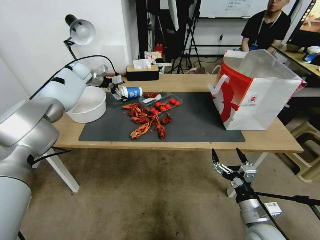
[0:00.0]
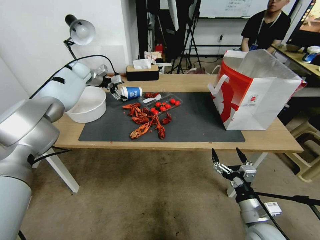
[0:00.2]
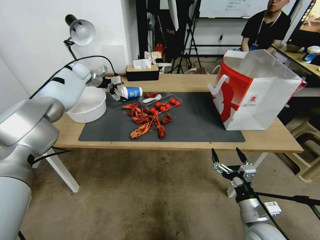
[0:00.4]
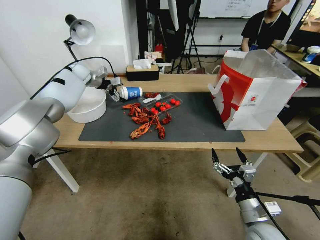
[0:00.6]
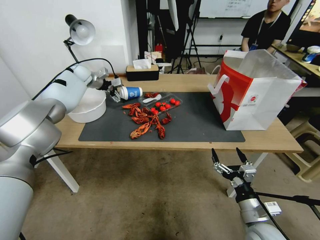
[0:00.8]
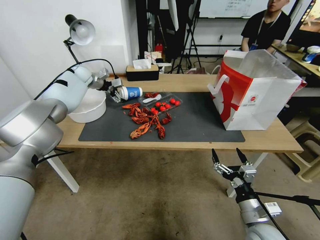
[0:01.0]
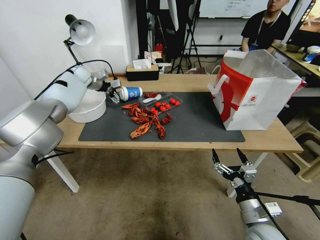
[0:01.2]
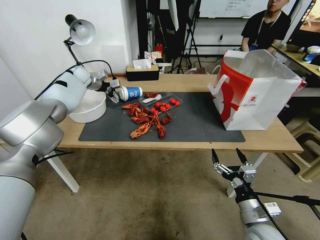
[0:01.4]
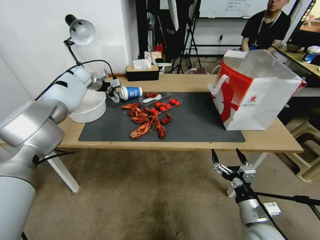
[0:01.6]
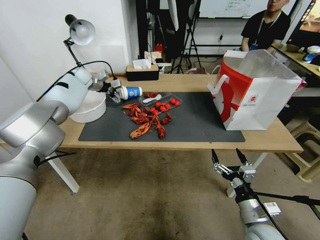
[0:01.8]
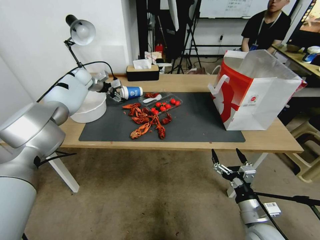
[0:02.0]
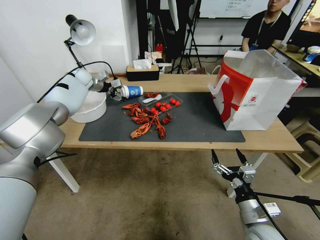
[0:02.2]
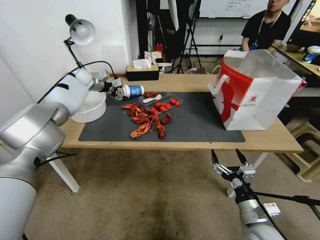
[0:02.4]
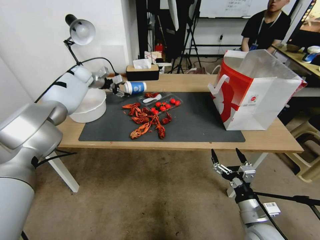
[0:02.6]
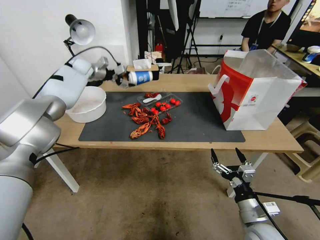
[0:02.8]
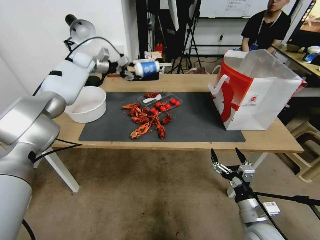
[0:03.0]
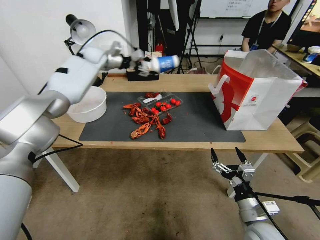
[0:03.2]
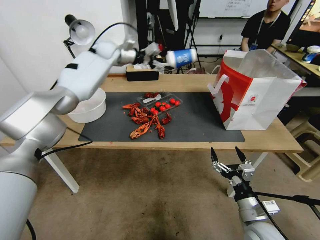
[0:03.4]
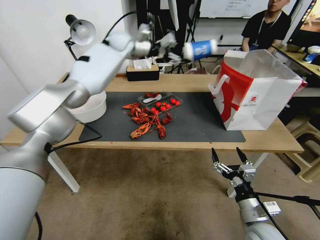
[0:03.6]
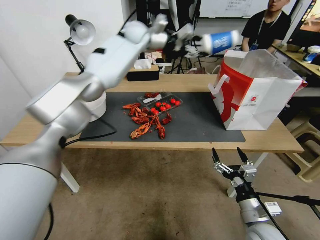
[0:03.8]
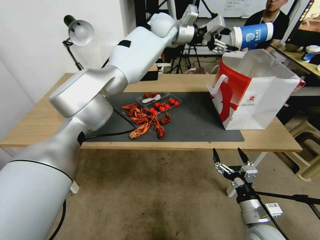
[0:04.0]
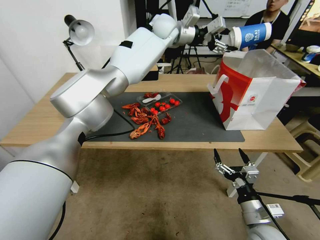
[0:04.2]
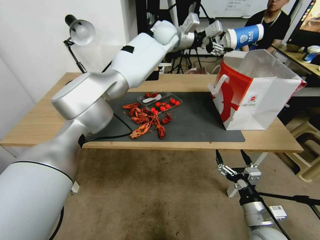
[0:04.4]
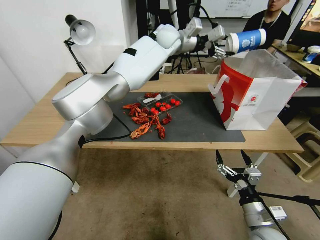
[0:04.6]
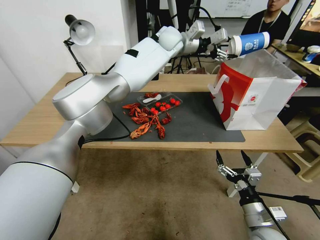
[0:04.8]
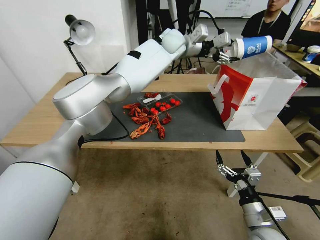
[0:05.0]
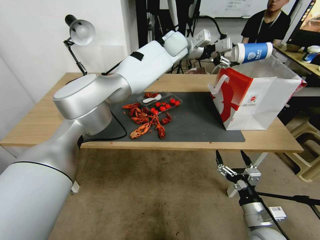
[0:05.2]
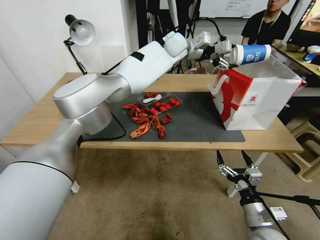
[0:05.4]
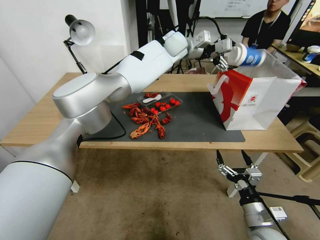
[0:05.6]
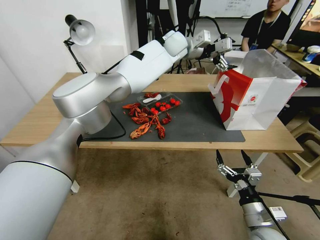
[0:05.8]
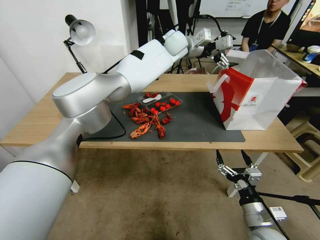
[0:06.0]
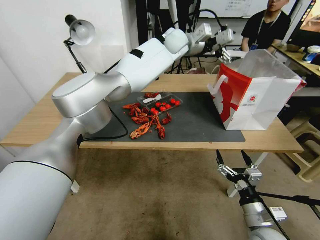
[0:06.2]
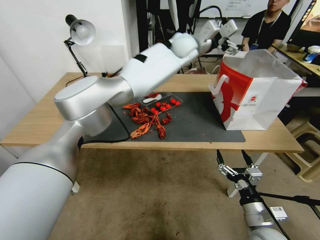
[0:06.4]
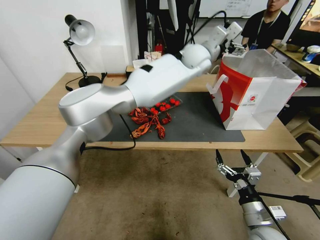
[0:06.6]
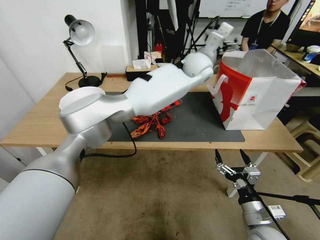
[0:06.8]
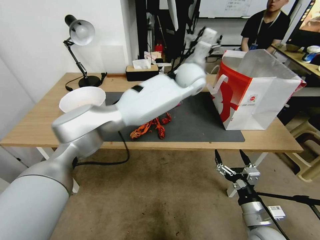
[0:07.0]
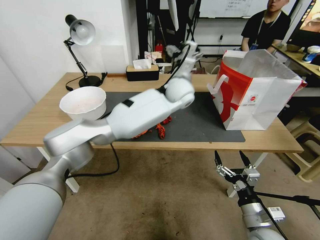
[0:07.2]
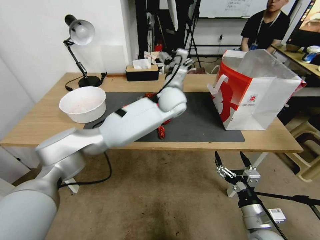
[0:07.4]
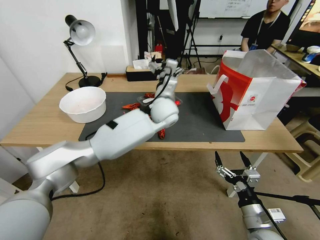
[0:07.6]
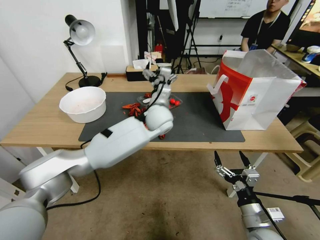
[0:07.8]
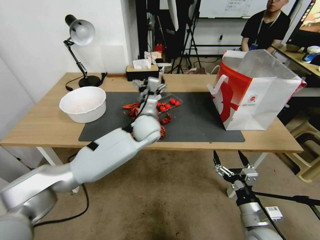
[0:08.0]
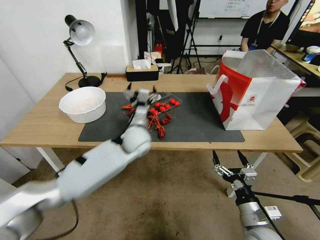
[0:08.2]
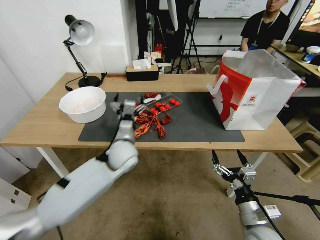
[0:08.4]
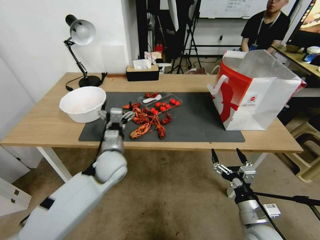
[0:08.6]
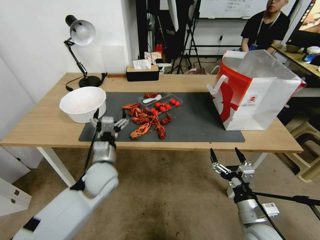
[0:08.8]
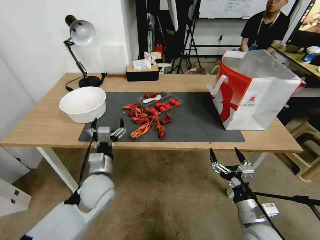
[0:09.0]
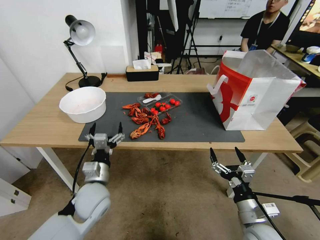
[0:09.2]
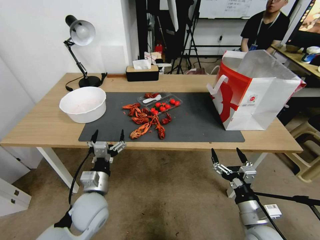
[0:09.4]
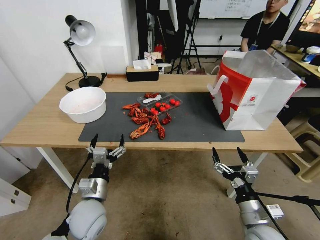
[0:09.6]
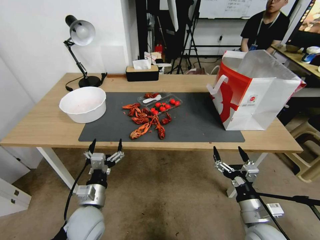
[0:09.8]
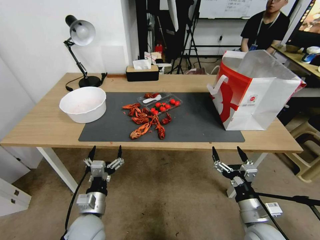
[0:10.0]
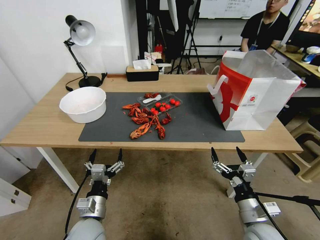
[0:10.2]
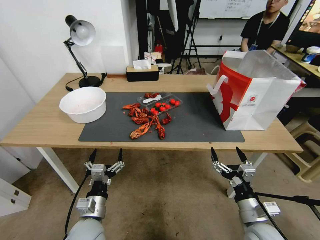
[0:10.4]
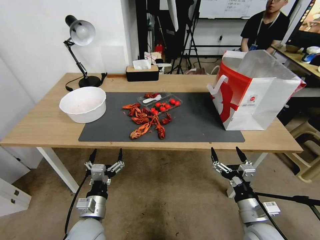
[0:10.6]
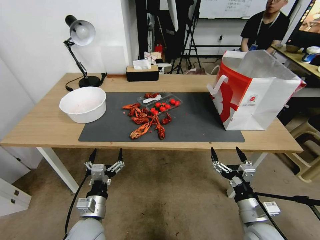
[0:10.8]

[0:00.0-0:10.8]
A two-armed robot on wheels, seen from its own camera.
0:00.0 to 0:01.6: There are only small adjustments of the grippers.
0:01.6 to 0:03.0: The left gripper goes roughly 5 cm upward, and closes.
0:03.0 to 0:04.6: The left gripper goes about 35 cm to the right.
0:04.6 to 0:06.2: The left gripper opens up.
0:06.2 to 0:07.8: The left gripper heads downward and backward, covering approximately 25 cm.
0:07.8 to 0:09.2: The left gripper moves to the left, backward and downward, about 25 cm.
0:09.2 to 0:10.8: The left gripper moves backward and downward, some 15 cm.

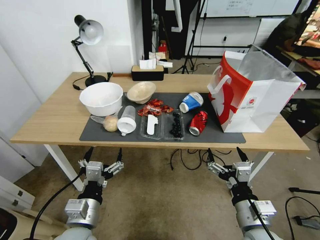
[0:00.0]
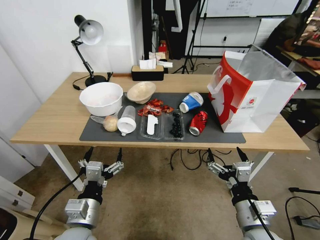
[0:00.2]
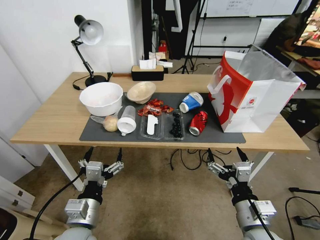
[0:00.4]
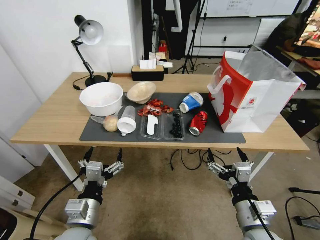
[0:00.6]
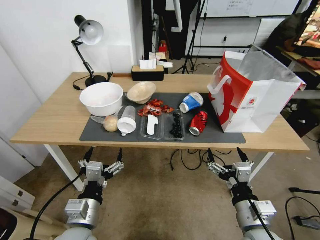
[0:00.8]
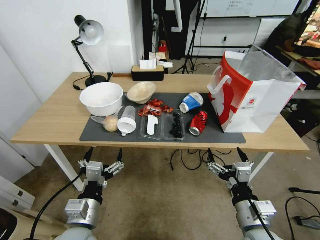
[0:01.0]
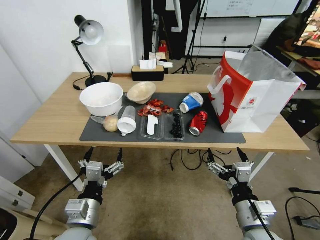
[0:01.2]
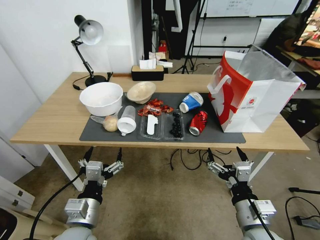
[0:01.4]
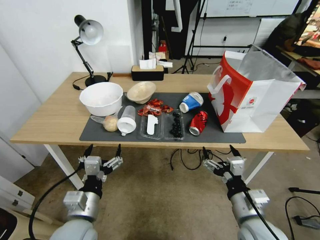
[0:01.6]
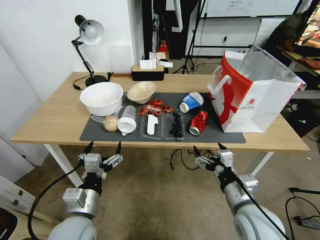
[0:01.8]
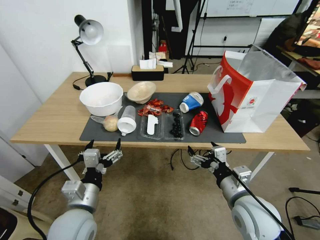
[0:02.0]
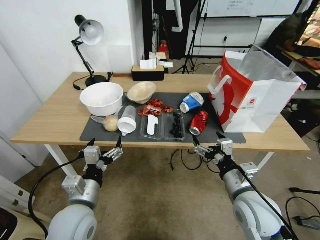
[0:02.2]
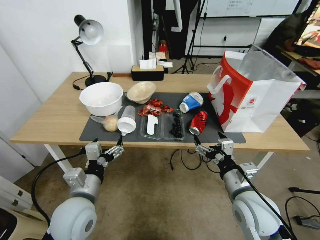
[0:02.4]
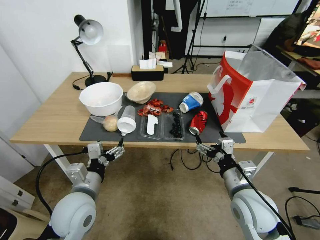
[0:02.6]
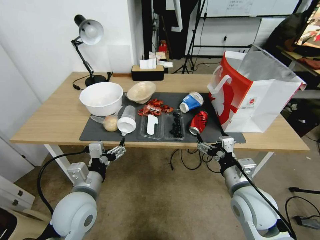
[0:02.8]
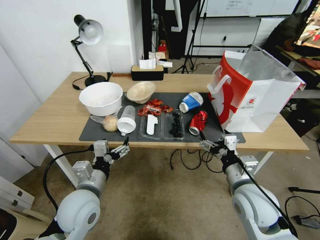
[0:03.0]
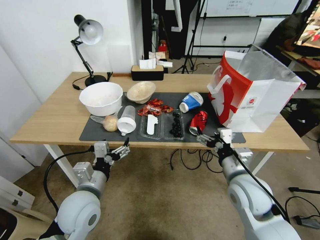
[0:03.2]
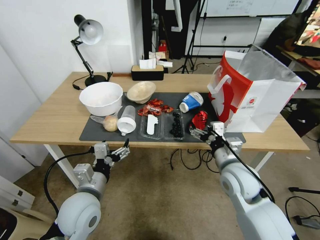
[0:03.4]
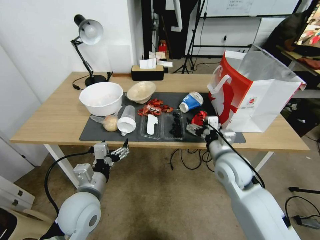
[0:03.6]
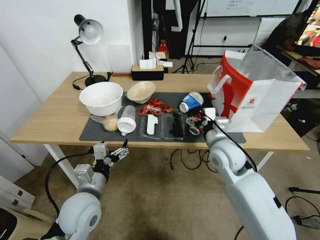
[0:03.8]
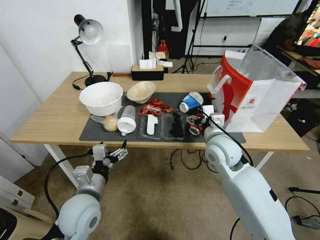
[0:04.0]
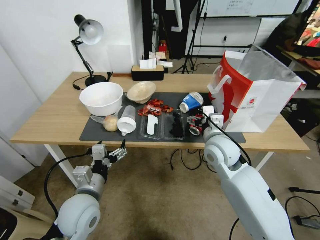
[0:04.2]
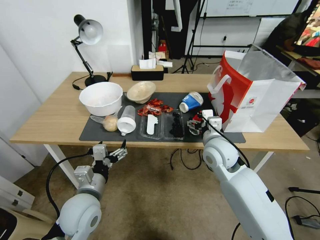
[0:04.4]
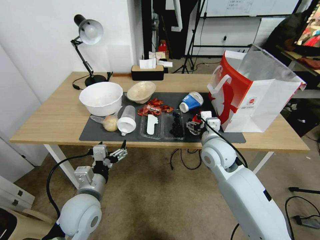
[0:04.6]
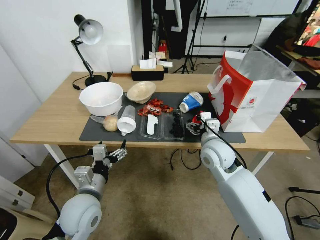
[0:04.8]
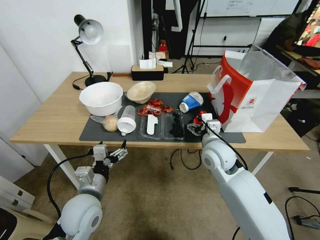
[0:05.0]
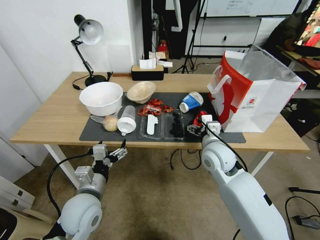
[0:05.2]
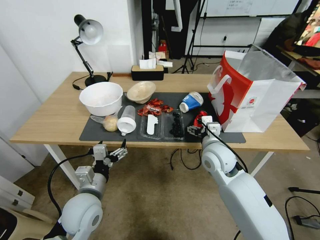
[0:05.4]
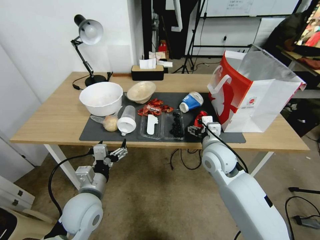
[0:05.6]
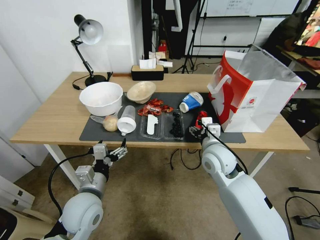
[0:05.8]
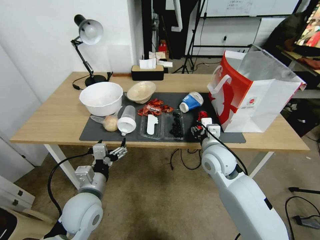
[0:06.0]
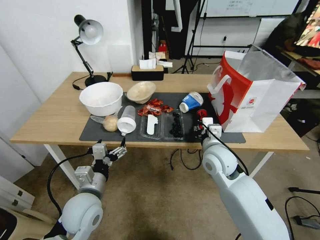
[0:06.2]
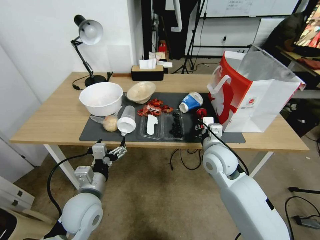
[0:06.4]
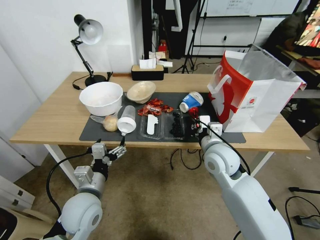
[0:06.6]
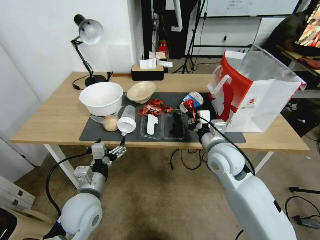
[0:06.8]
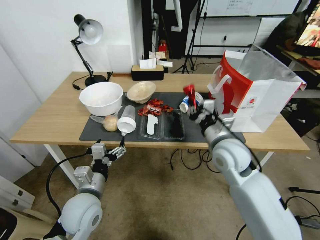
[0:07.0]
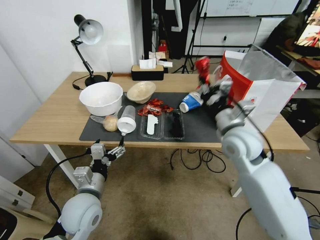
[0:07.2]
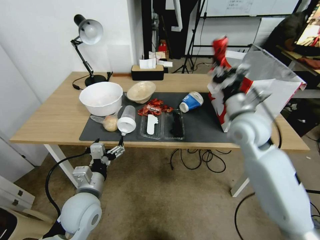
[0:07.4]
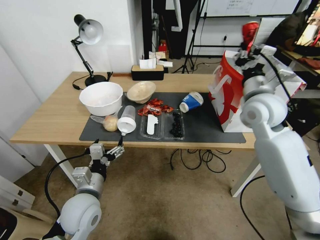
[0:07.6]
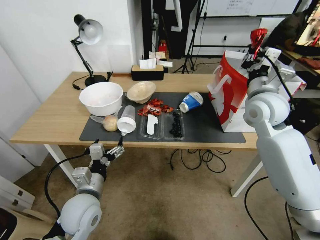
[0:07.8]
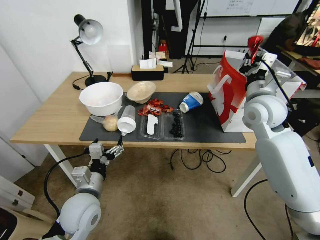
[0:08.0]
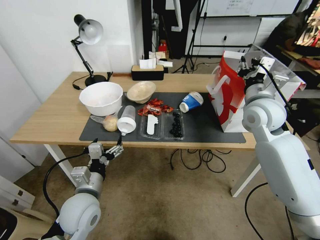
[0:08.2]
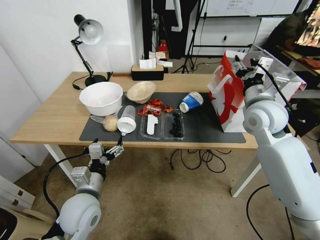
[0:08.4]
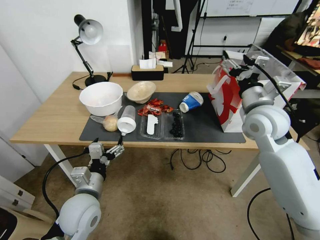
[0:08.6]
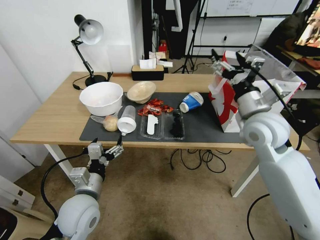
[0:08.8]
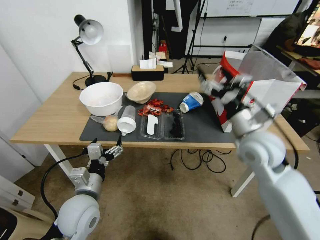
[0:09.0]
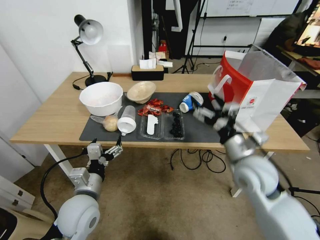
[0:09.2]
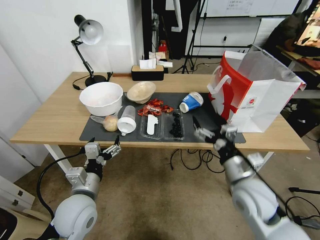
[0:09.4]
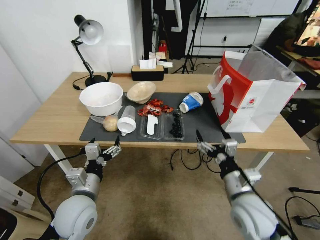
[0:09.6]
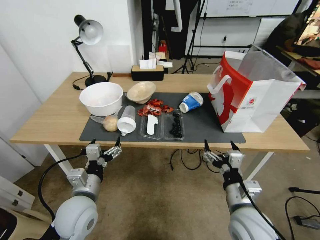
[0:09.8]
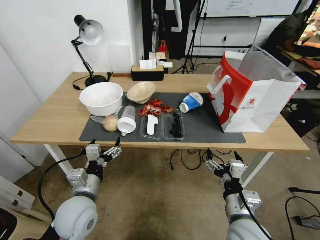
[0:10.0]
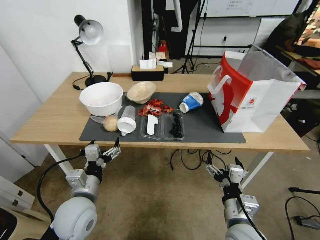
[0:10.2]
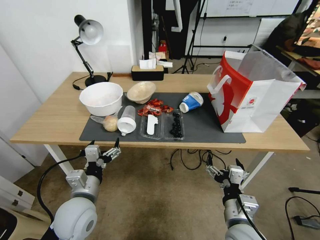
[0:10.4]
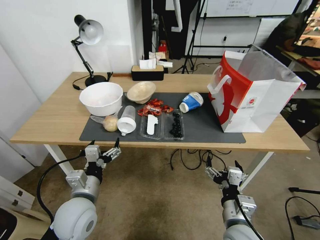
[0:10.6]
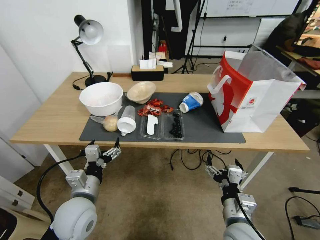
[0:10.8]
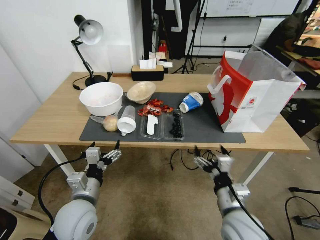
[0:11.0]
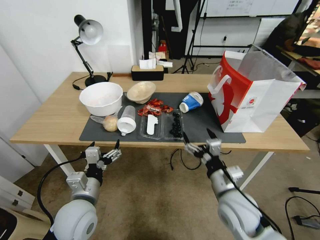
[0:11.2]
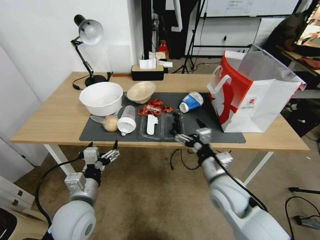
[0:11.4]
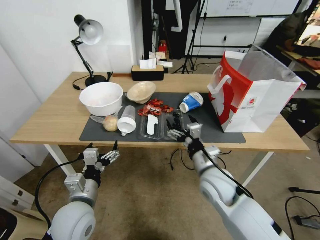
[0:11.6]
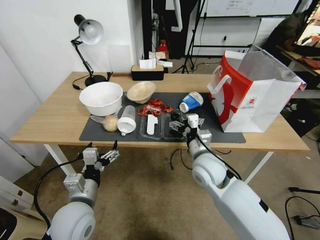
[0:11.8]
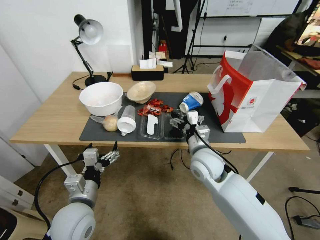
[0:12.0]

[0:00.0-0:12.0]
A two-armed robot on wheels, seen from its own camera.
0:01.6 to 0:03.0: The two grippers go some 10 cm forward.
0:03.0 to 0:04.4: The right gripper goes roughly 15 cm forward and to the left.
0:04.4 to 0:06.0: The right gripper closes.
0:06.0 to 0:07.6: The right gripper heads upward, to the right and forward, covering some 20 cm, and closes.
0:07.6 to 0:09.0: The right gripper travels backward and downward by approximately 10 cm, and opens up.
0:09.0 to 0:10.4: The right gripper travels backward and downward by roughly 25 cm.
0:10.4 to 0:12.0: The right gripper moves forward, approximately 20 cm.
